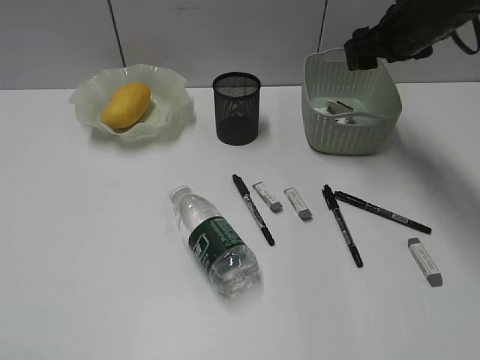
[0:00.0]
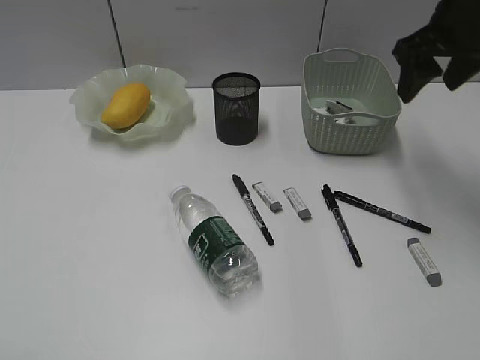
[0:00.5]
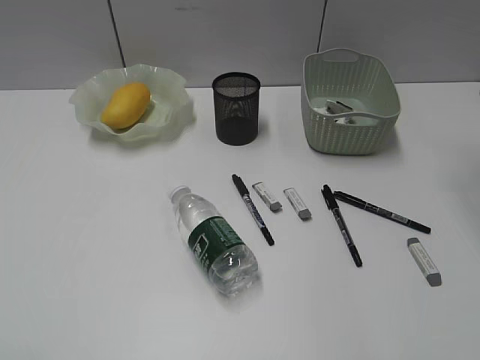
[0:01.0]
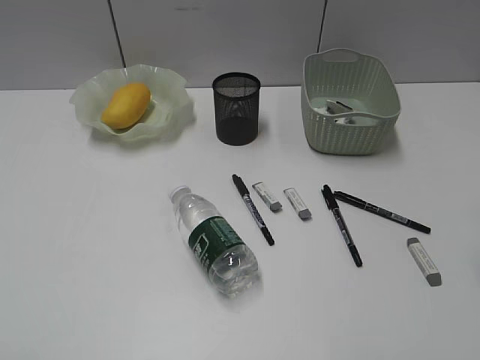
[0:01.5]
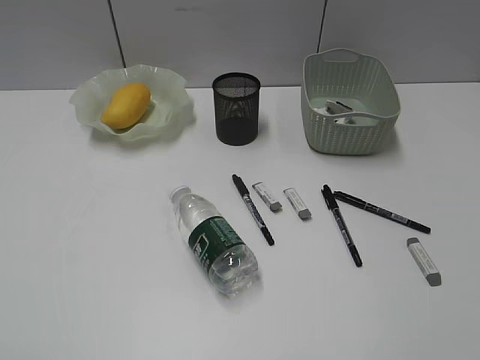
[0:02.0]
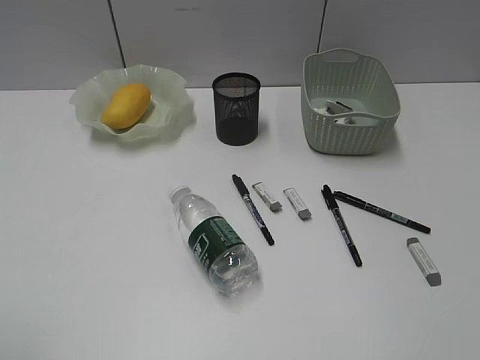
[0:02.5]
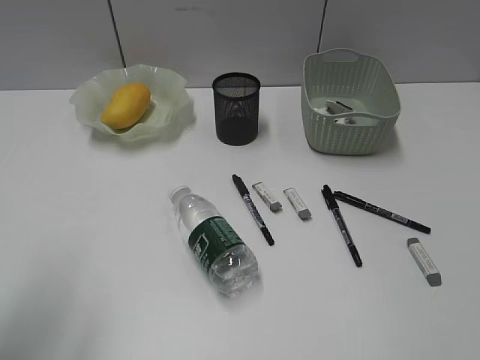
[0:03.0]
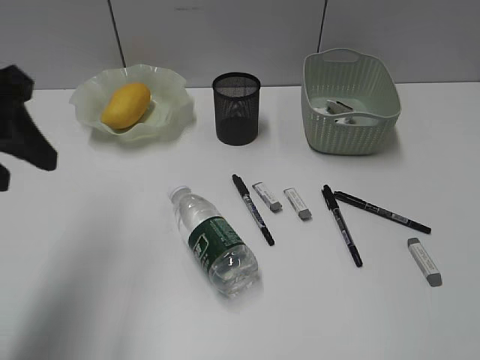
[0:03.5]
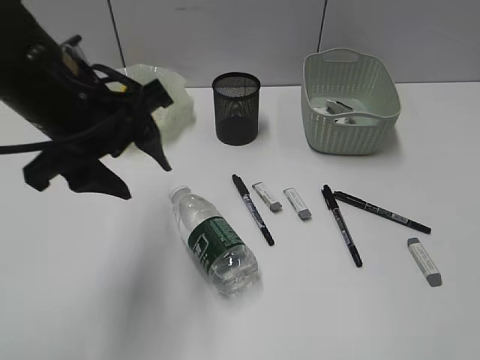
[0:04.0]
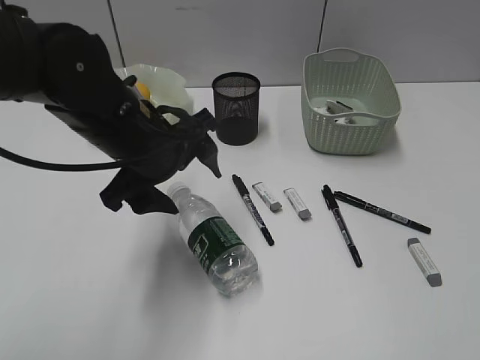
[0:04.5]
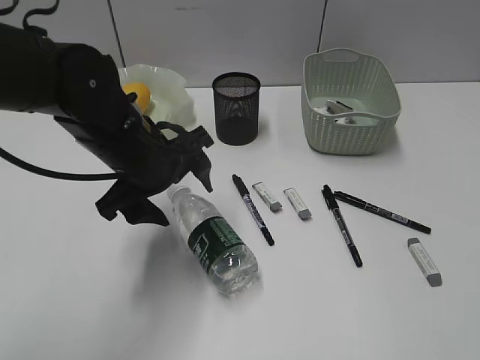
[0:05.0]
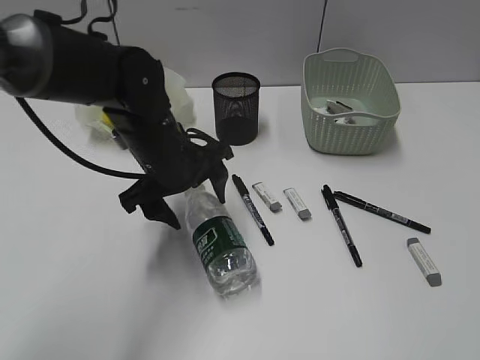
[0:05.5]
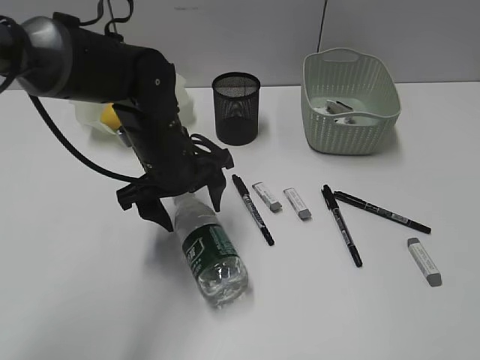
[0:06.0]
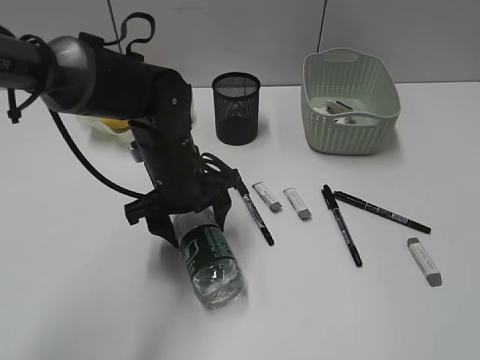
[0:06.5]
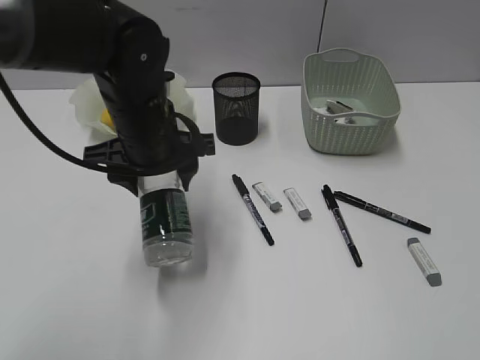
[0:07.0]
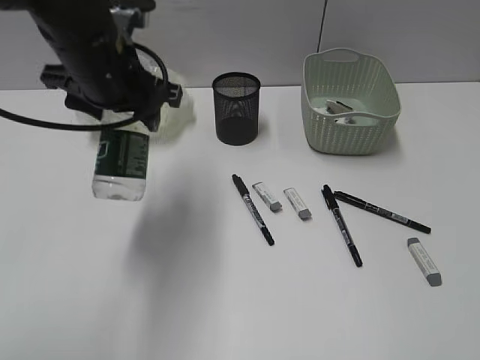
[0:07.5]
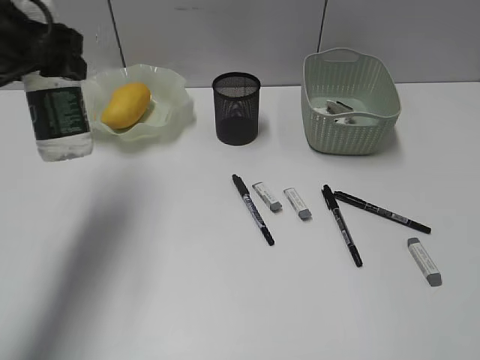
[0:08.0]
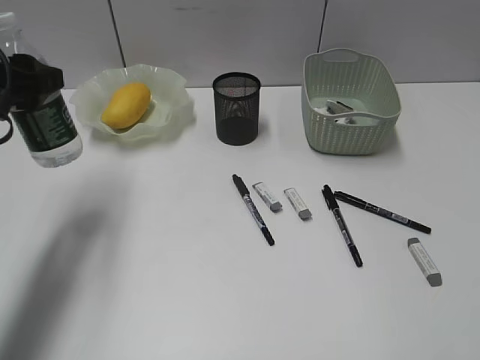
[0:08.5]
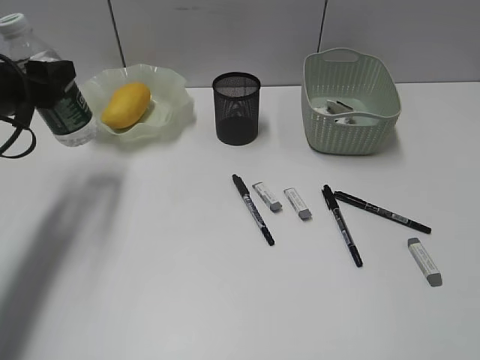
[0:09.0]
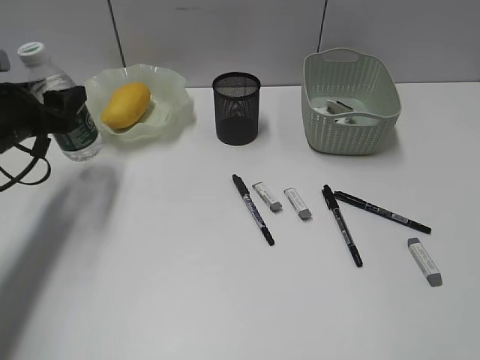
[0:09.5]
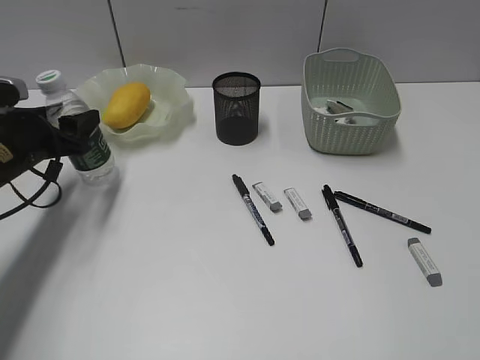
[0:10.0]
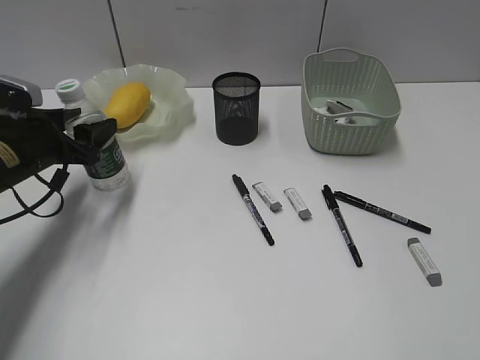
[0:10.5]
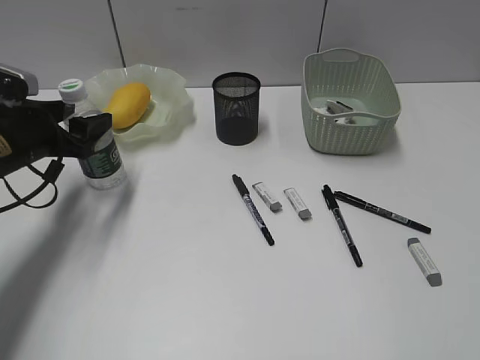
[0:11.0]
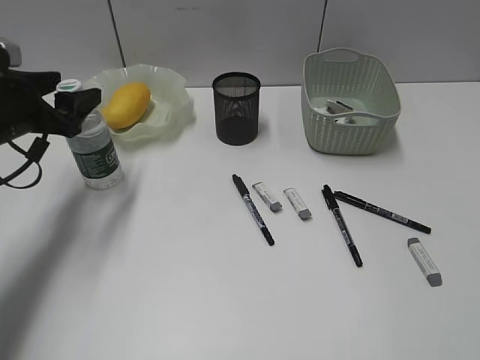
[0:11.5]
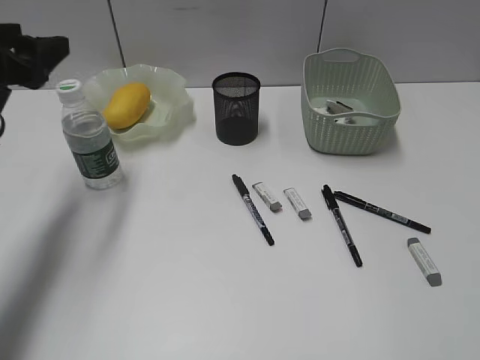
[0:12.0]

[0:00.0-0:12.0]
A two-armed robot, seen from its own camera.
Step, 0:00.0 to 0:06.5: Grasp the bottle with left gripper.
Step, 0:07.0 to 0:11.5: Stand the bottle with left gripper.
0:00.0 to 0:02.0: The right gripper travels backward by approximately 35 cm.
0:02.0 to 0:04.0: The right gripper travels backward by roughly 10 cm. The left gripper heads forward and to the right, covering about 30 cm.
0:04.0 to 0:06.0: The left gripper moves downward, forward and to the right, roughly 15 cm.
0:06.0 to 0:08.0: The left gripper travels to the left and upward by roughly 20 cm.
0:08.0 to 0:10.0: The left gripper moves downward, some 15 cm.
0:10.0 to 0:12.0: The left gripper heads upward, covering roughly 15 cm.

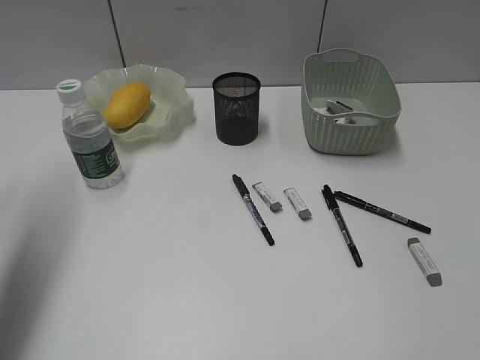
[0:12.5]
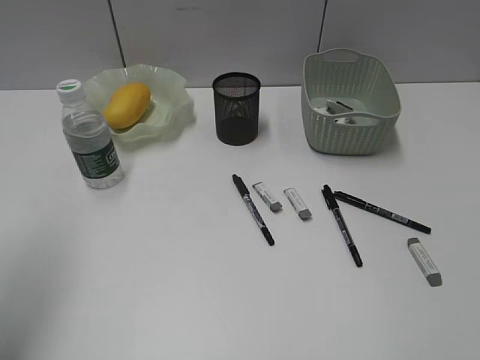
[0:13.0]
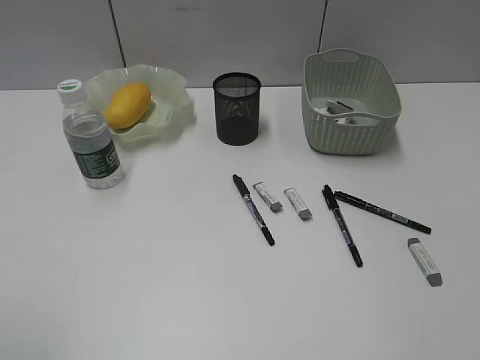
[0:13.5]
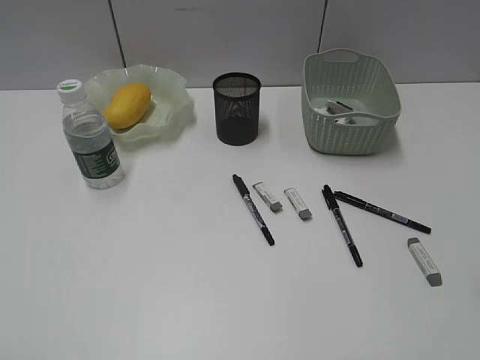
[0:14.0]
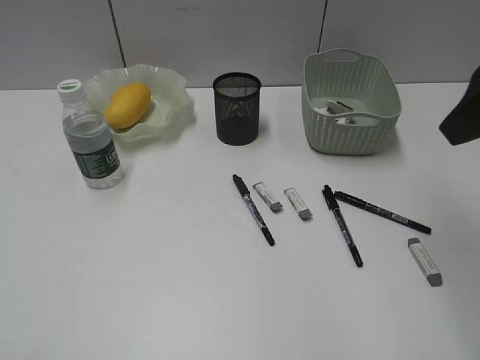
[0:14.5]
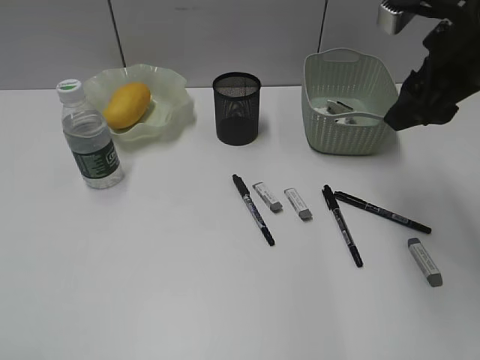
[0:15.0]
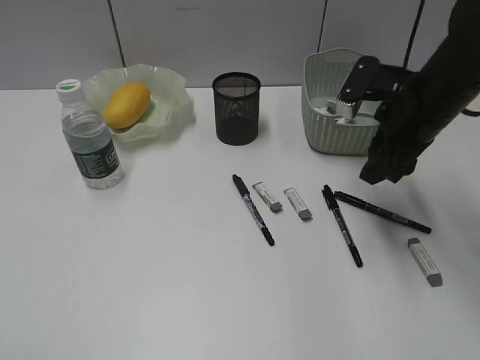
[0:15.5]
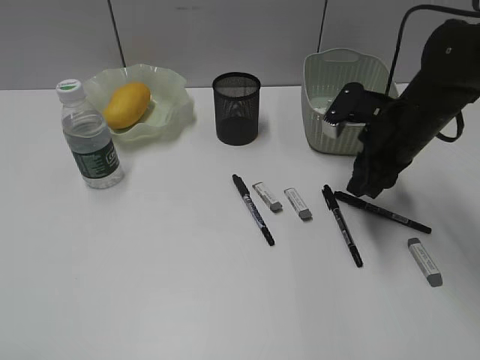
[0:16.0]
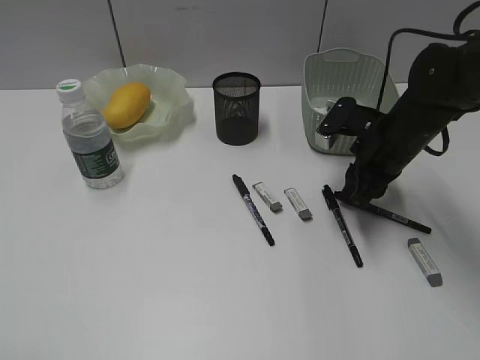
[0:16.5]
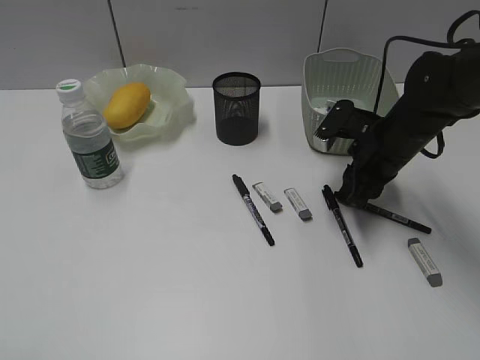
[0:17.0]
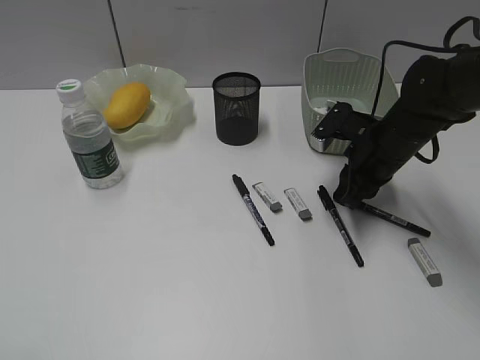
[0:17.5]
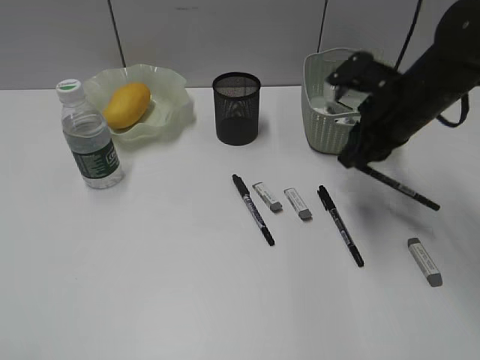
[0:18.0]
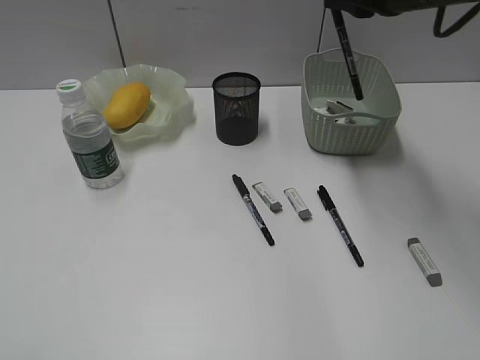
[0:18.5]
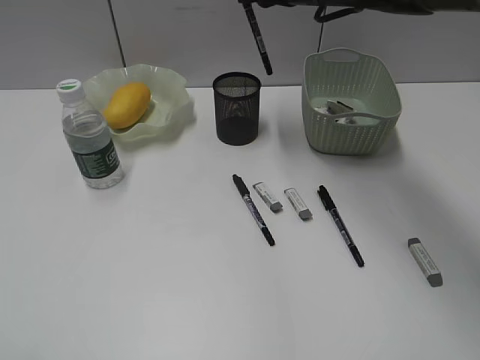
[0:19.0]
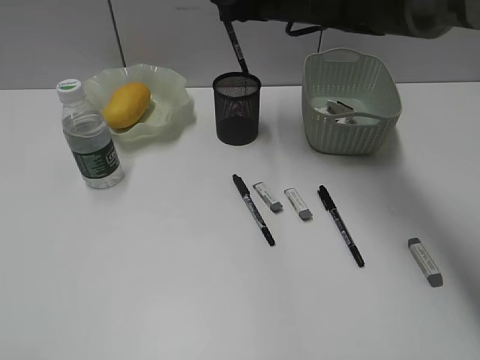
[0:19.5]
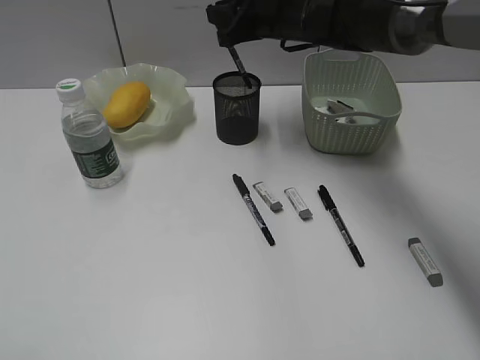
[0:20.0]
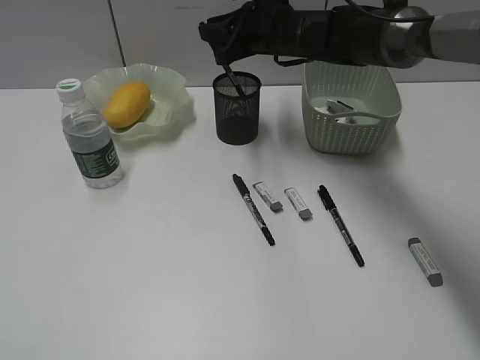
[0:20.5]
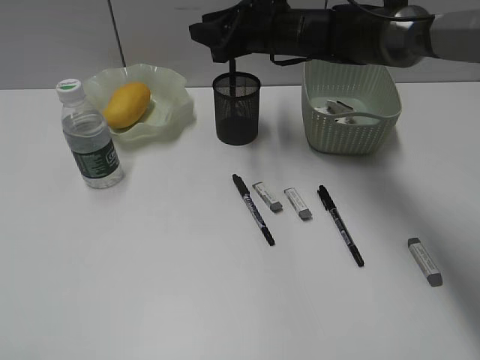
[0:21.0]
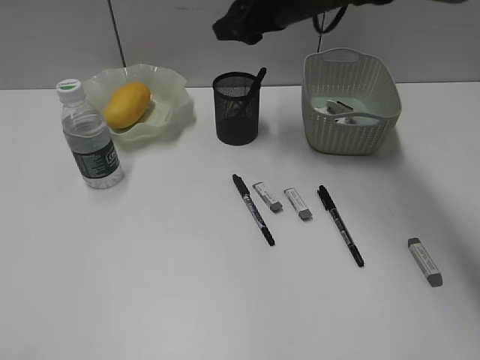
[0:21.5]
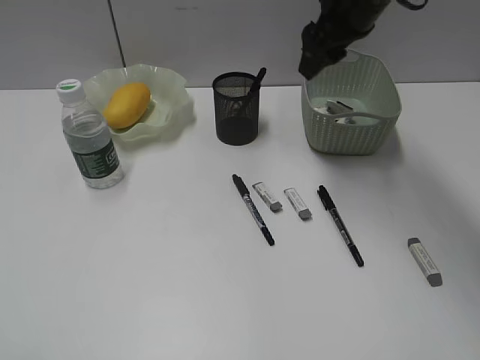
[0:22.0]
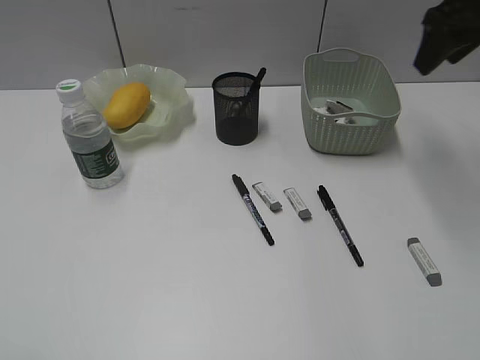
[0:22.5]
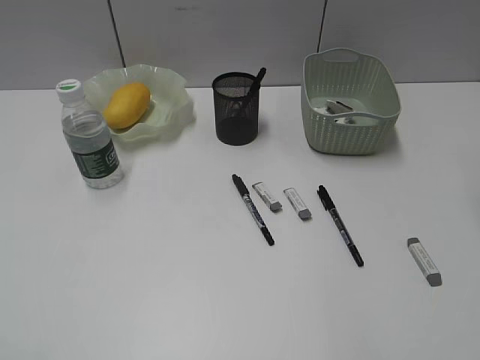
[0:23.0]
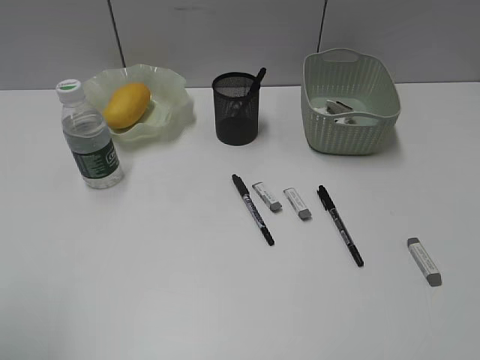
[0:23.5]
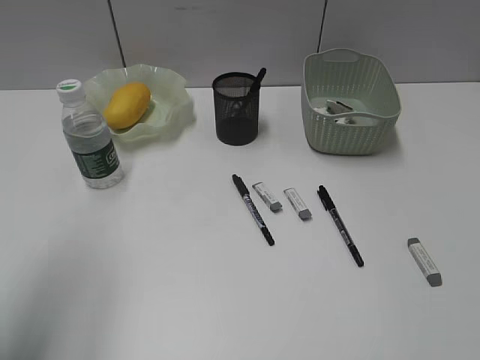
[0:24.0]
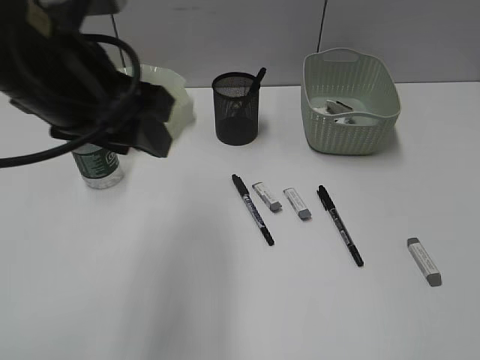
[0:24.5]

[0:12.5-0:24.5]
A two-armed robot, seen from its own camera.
Step, 0:12.5 to 0:17.5: Grasp the black pen with right gripper.
Step, 0:18.0 to 0:21.0: Place the black pen in pen holder with right gripper.
0:12.5 to 0:14.5: The left gripper heads backward, covering approximately 30 cm. Meanwhile the right gripper shifts approximately 25 cm forward.
0:14.5 to 0:16.5: The right gripper shifts about 25 cm downward and forward, and closes.
0:16.5 to 0:18.5: The right gripper is displaced upward by roughly 20 cm.
0:18.5 to 0:20.5: The right gripper moves to the left, downward and forward, some 20 cm.
0:20.5 to 0:22.5: The right gripper shifts about 25 cm to the right, upward and backward, and opens its fingers.
0:22.5 to 0:24.5: The left gripper shifts approximately 30 cm forward and to the right, while the right gripper heads backward, covering some 40 cm.

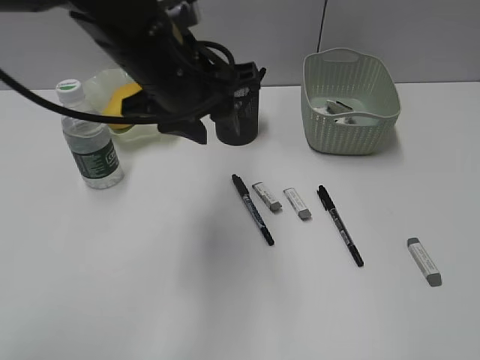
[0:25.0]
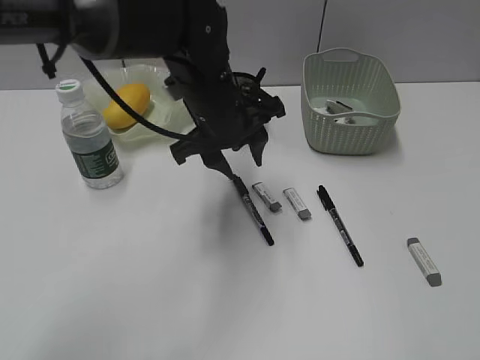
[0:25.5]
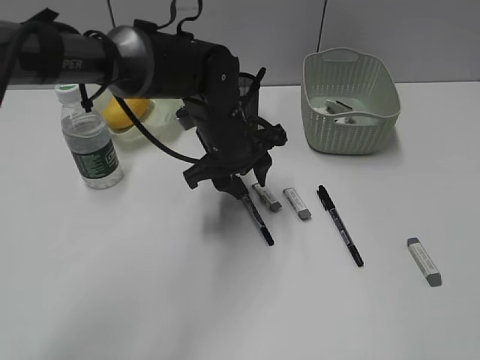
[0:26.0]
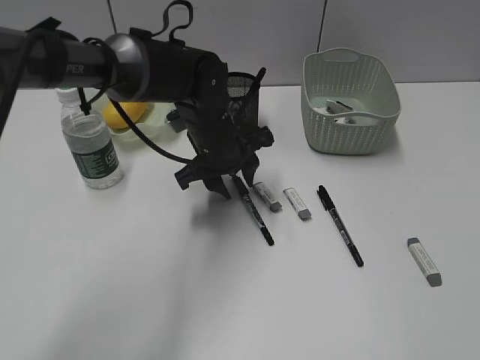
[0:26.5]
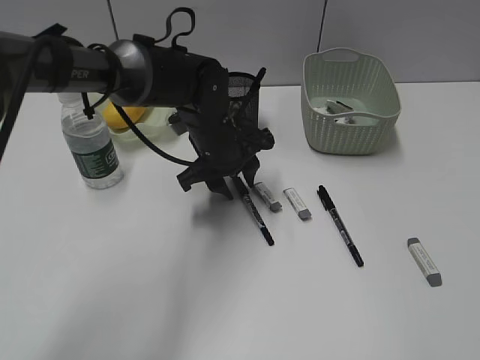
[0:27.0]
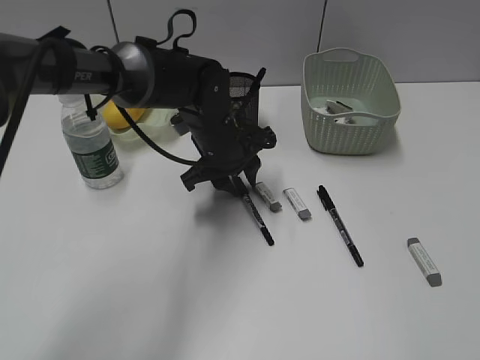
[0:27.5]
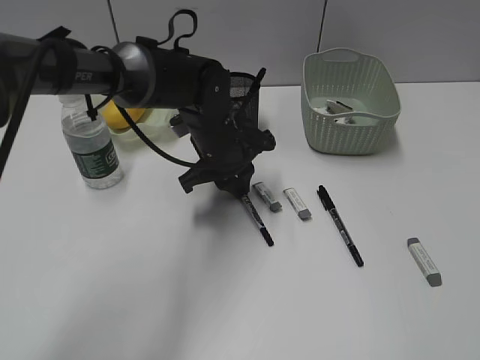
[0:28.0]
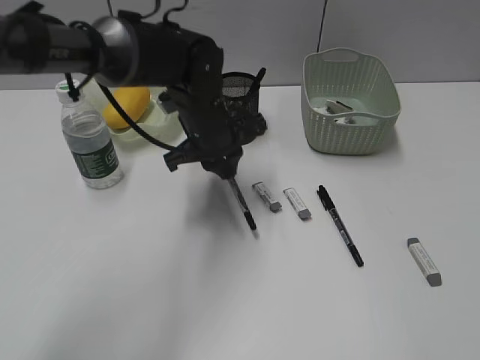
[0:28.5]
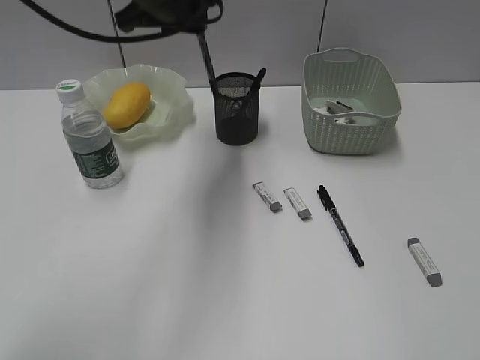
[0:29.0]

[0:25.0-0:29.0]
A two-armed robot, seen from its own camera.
Step, 0:25.0 to 0:28.0: Grasp the black pen with left gripper.
0:25.0 to 0:27.0: The left gripper is displaced downward and forward by roughly 15 cm.
0:27.0 to 0:29.0: The left gripper travels upward by approximately 20 cm, and closes.
